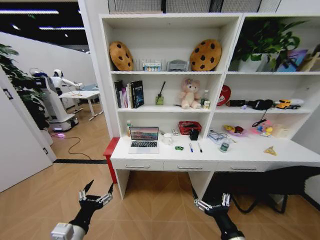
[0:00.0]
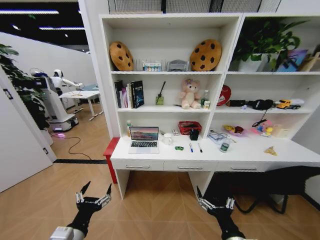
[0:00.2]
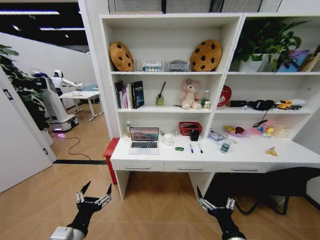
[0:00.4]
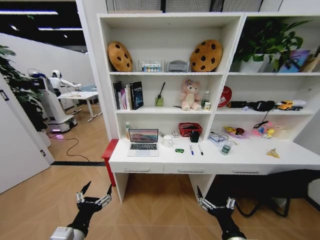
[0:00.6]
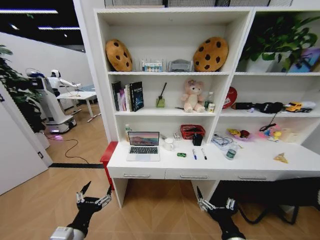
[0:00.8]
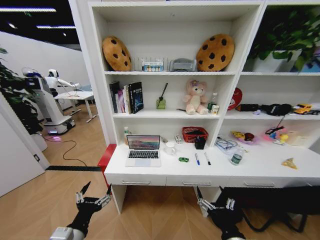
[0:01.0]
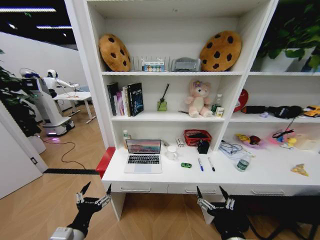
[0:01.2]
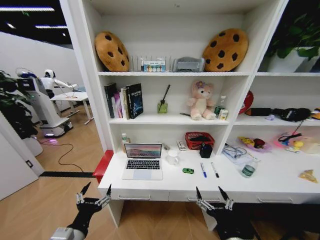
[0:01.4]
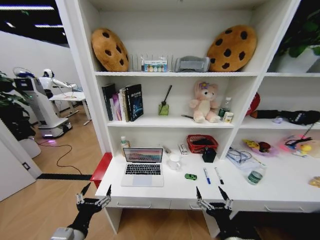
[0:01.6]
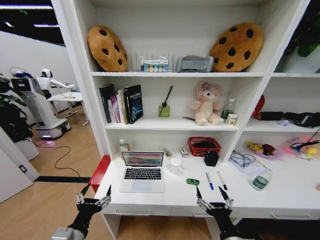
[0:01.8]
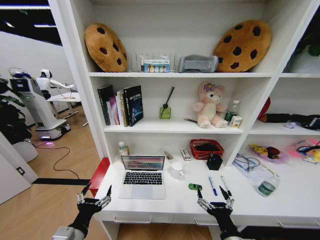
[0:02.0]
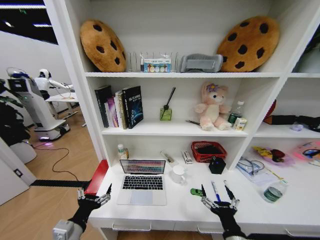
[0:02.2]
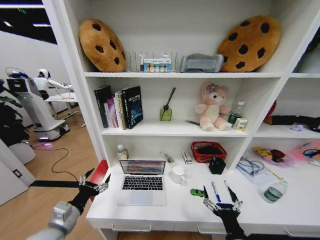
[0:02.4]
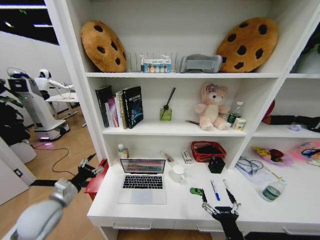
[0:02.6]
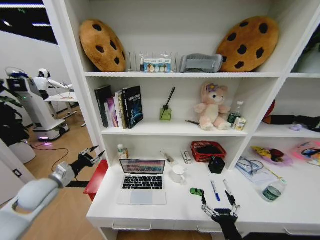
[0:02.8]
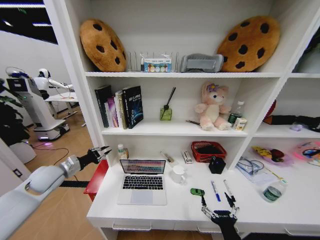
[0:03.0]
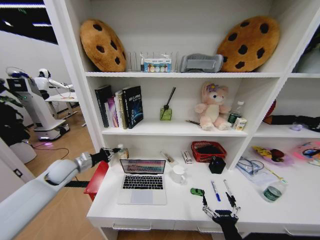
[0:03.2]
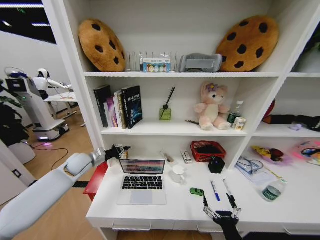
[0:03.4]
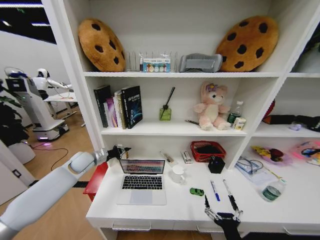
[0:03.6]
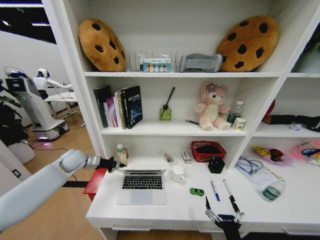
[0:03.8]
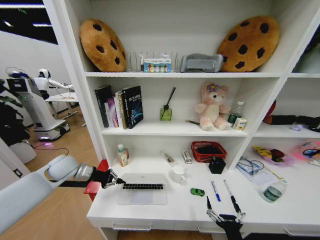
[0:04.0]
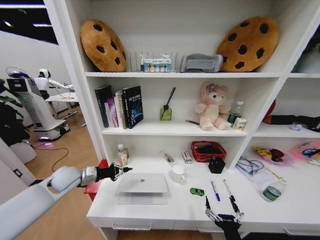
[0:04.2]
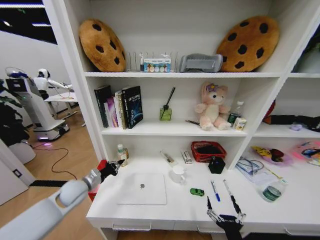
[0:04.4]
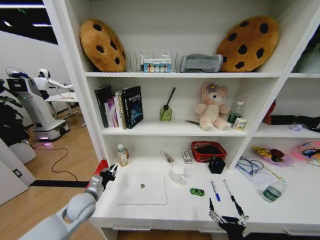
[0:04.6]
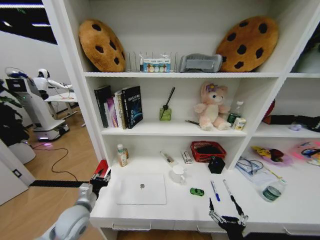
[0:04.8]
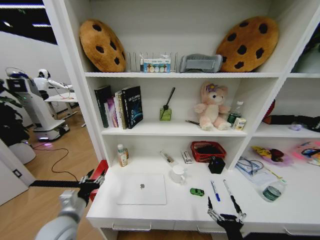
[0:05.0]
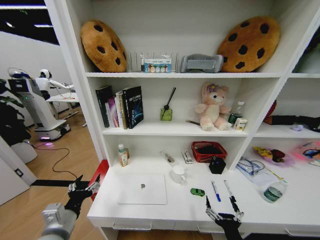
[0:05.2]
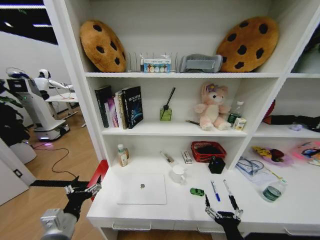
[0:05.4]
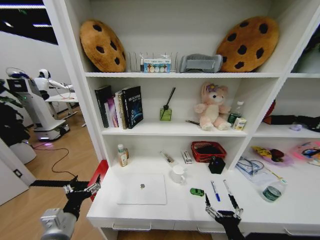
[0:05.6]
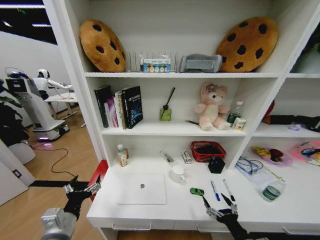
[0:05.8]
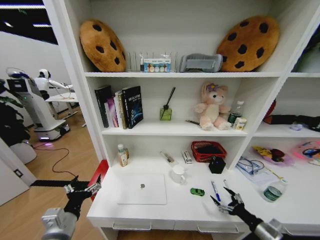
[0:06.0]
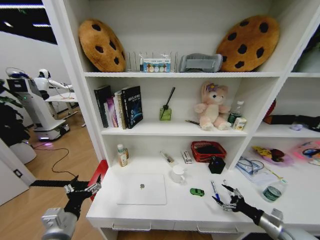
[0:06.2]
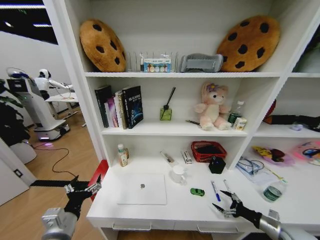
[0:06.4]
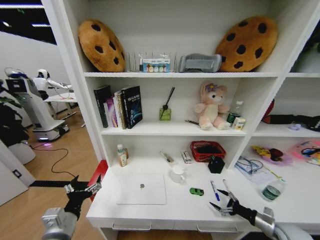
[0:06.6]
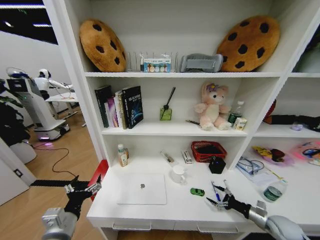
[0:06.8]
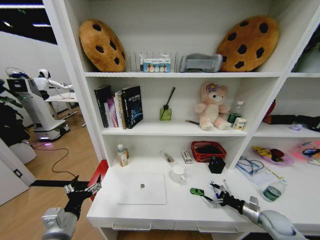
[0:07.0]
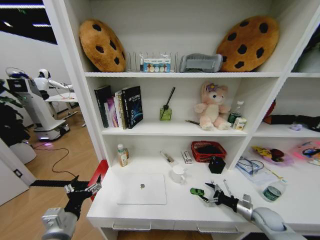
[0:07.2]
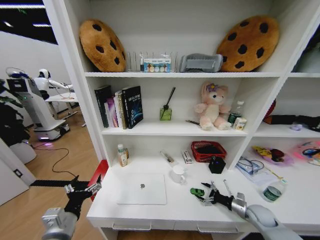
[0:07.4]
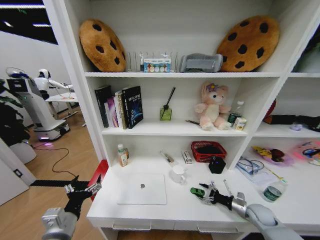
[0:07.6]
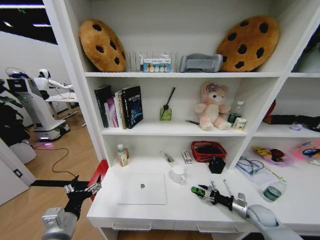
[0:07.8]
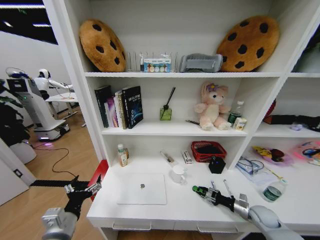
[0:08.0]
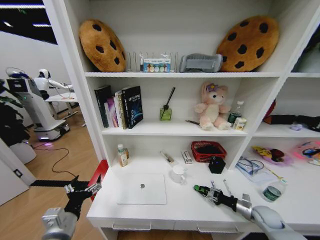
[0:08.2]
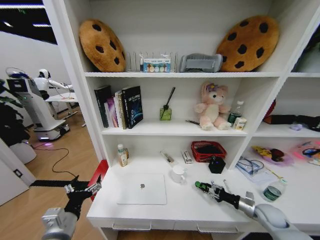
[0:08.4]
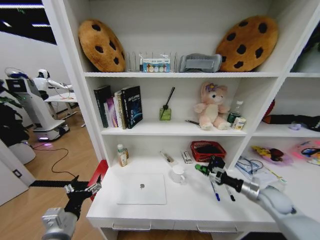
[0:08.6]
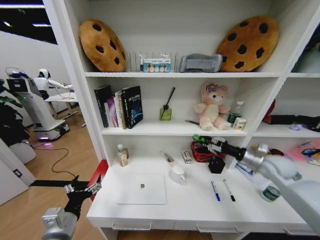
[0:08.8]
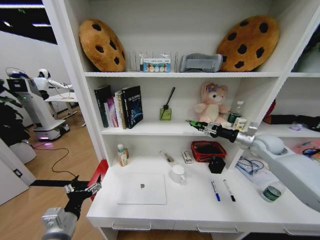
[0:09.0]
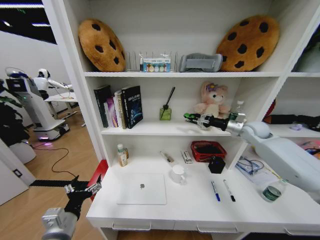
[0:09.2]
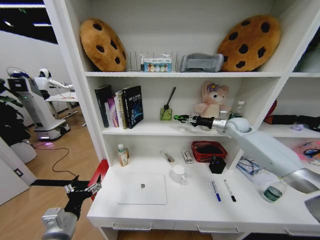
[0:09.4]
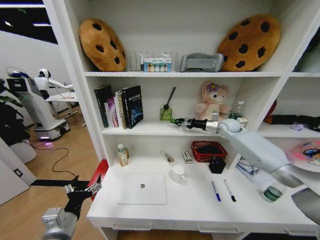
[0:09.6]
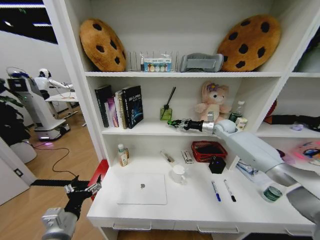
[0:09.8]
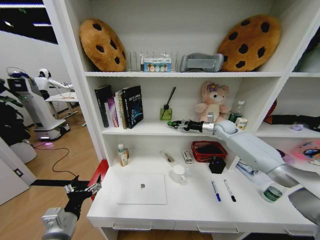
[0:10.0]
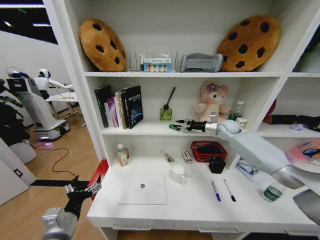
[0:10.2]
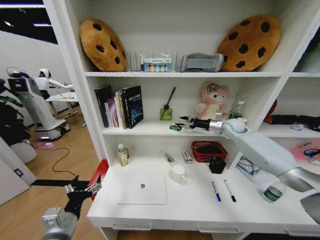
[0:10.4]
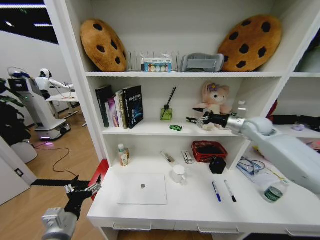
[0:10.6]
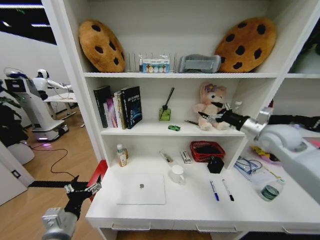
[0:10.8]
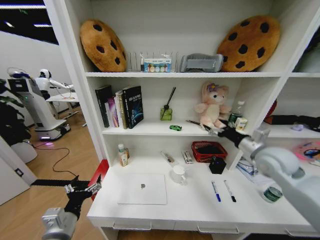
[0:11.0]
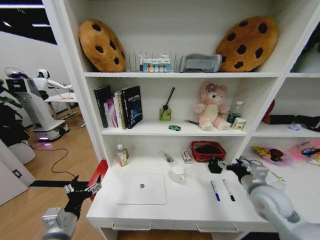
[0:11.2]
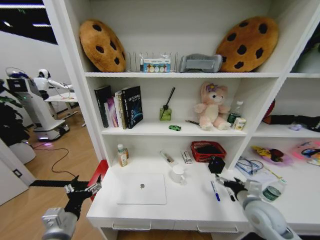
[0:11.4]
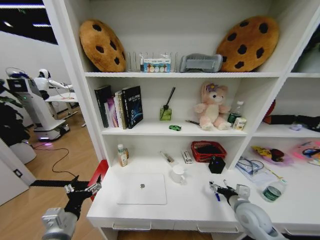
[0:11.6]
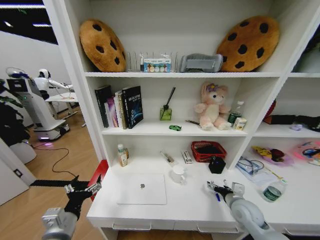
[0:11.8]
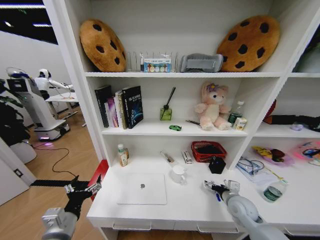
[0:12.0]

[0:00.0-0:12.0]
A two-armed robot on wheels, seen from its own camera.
Task of the whole recording: Organize the objects on the table.
0:01.6 to 0:03.0: The left gripper heads forward and to the left, covering about 30 cm, and closes its fingers.
0:03.0 to 0:04.4: The left gripper moves to the right and downward, roughly 10 cm, and moves approximately 10 cm forward and comes back.
0:04.4 to 0:06.0: The right gripper heads to the right and forward, covering roughly 20 cm. Meanwhile the left gripper goes some 20 cm backward, and opens up.
0:06.0 to 0:07.6: The right gripper is displaced forward and downward by roughly 15 cm.
0:07.6 to 0:09.0: The right gripper moves upward and forward, about 35 cm, and closes.
0:09.0 to 0:10.4: The right gripper travels forward and to the left by about 15 cm, and opens.
0:10.4 to 0:12.0: The right gripper heads backward and downward, covering some 35 cm.

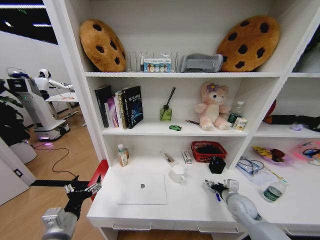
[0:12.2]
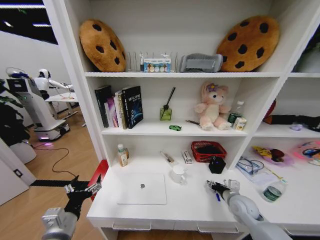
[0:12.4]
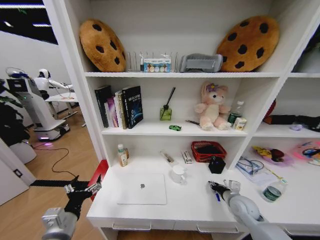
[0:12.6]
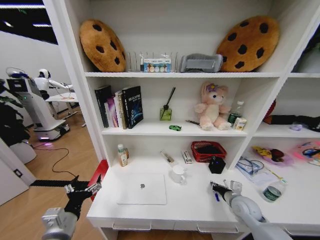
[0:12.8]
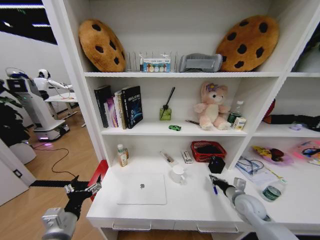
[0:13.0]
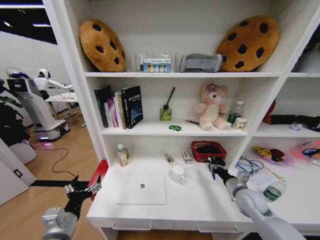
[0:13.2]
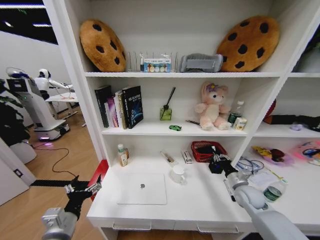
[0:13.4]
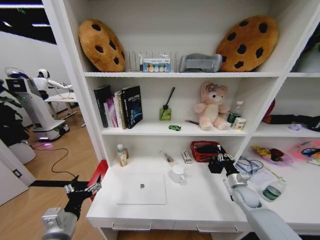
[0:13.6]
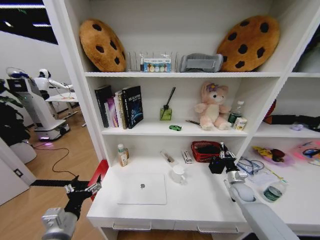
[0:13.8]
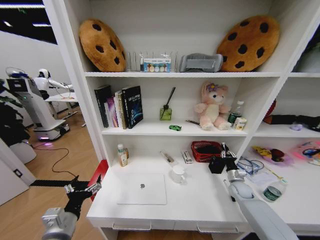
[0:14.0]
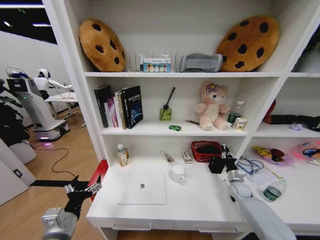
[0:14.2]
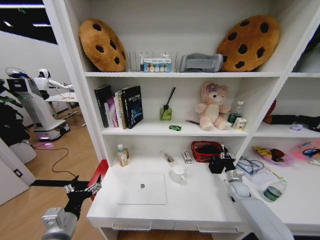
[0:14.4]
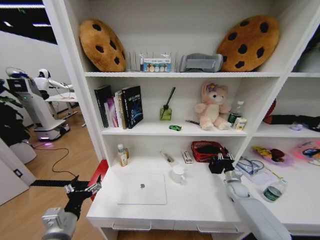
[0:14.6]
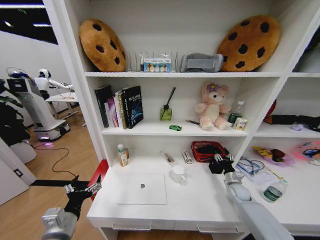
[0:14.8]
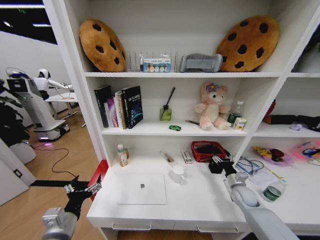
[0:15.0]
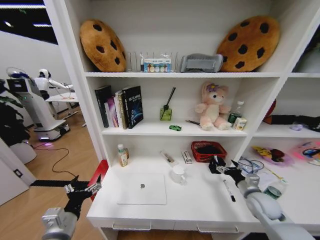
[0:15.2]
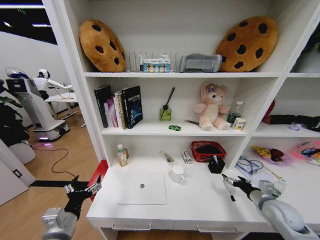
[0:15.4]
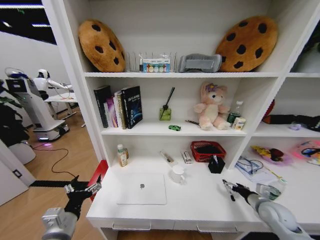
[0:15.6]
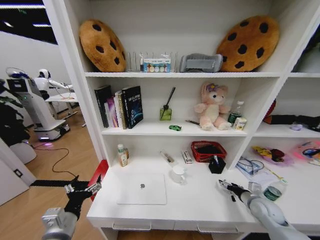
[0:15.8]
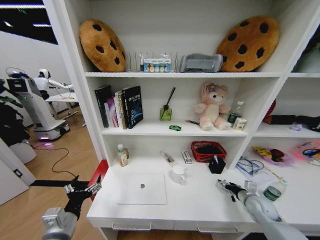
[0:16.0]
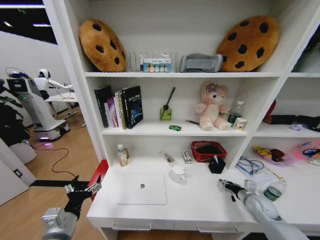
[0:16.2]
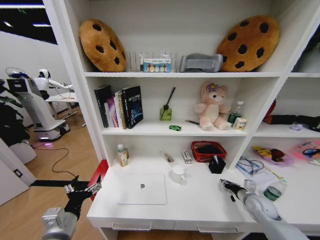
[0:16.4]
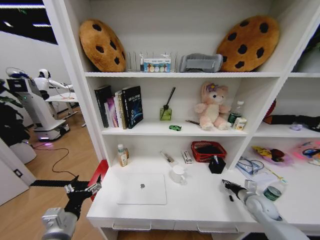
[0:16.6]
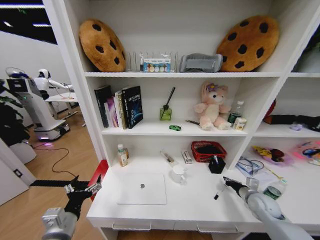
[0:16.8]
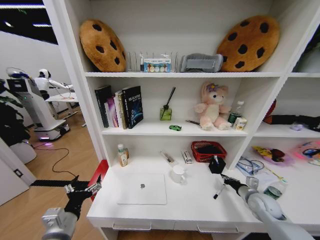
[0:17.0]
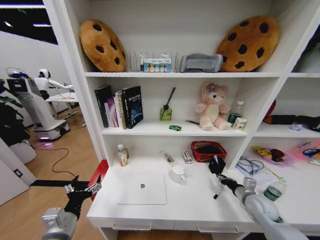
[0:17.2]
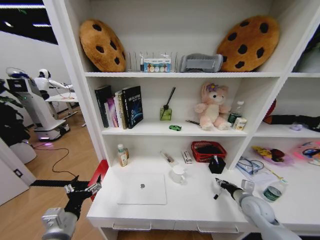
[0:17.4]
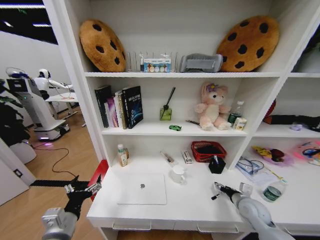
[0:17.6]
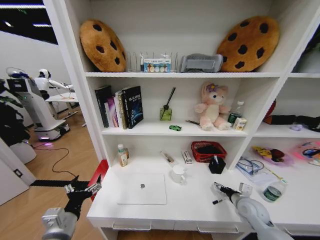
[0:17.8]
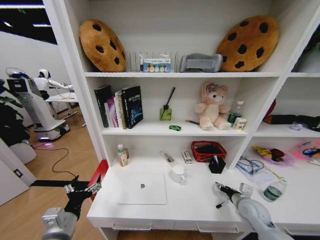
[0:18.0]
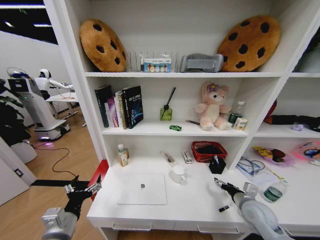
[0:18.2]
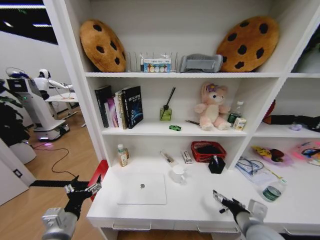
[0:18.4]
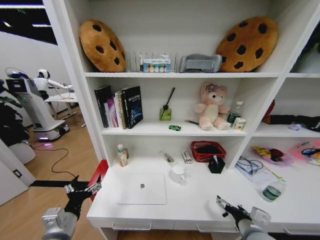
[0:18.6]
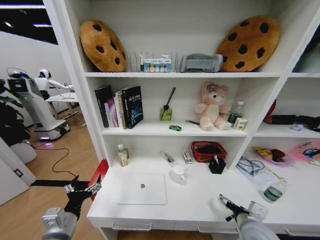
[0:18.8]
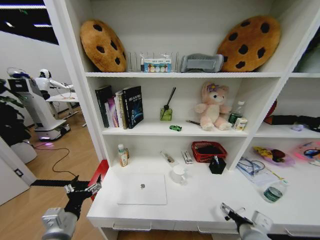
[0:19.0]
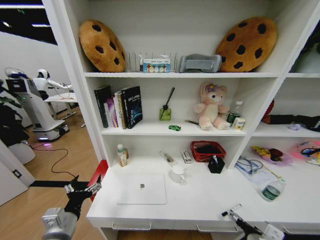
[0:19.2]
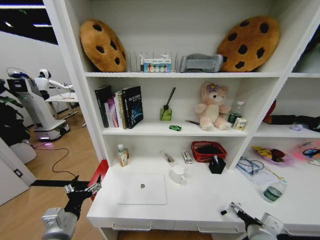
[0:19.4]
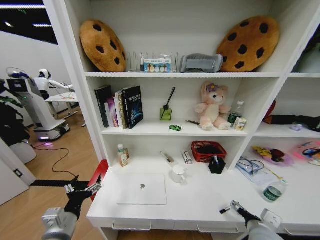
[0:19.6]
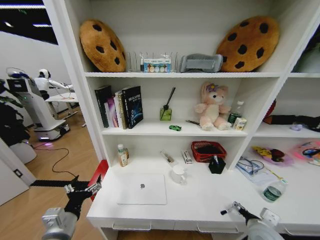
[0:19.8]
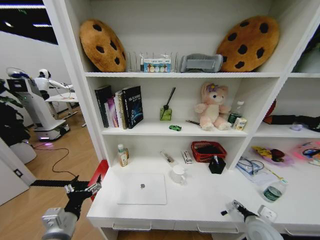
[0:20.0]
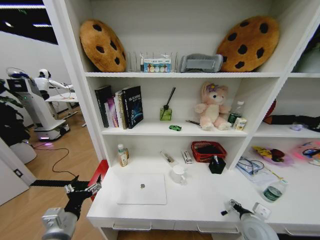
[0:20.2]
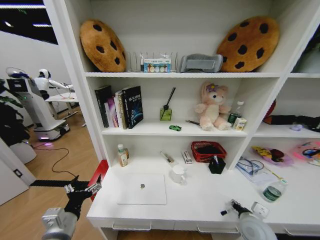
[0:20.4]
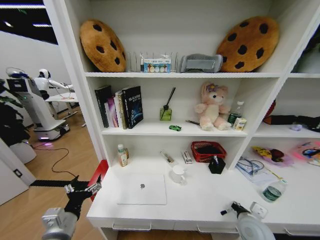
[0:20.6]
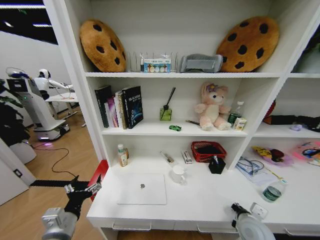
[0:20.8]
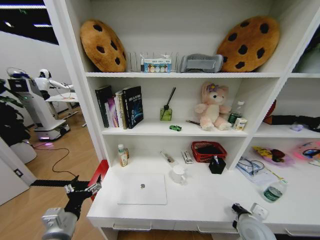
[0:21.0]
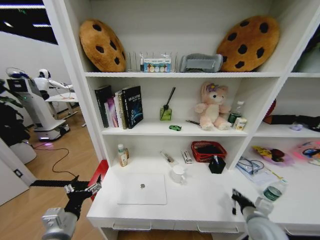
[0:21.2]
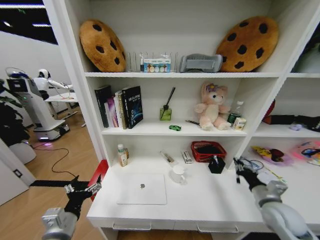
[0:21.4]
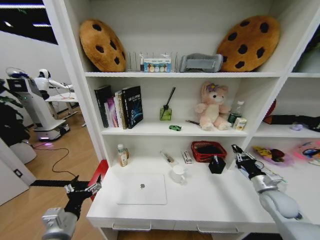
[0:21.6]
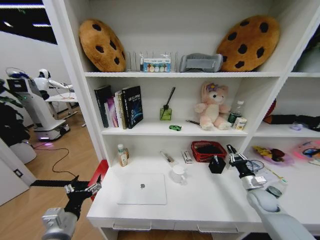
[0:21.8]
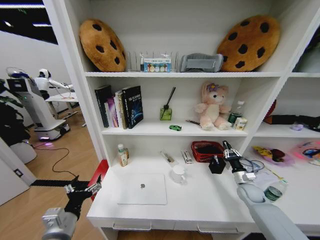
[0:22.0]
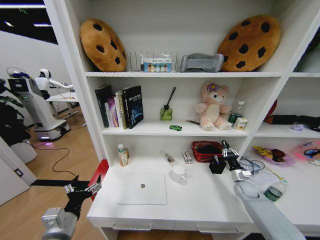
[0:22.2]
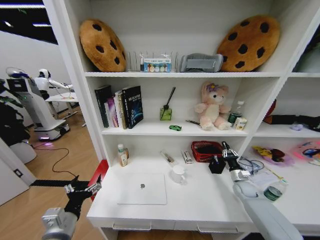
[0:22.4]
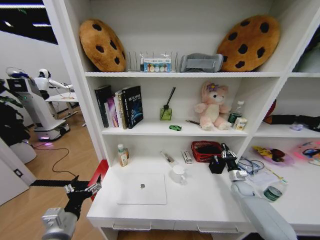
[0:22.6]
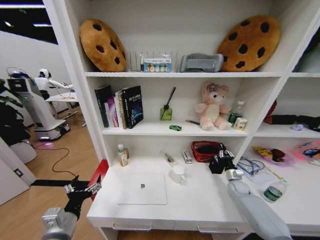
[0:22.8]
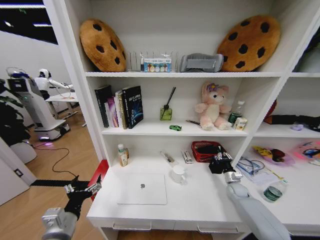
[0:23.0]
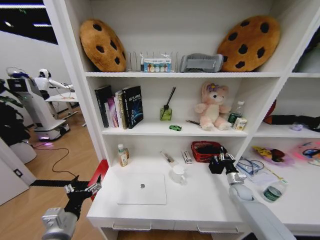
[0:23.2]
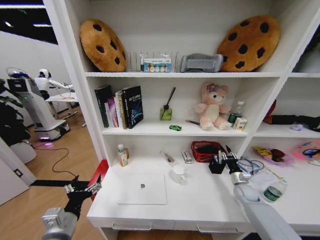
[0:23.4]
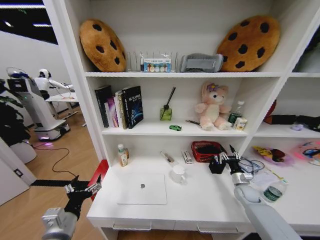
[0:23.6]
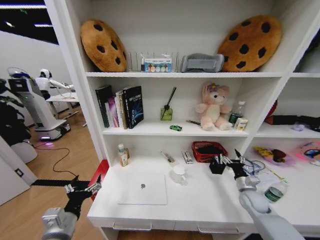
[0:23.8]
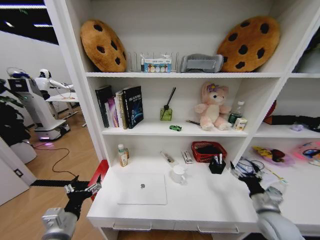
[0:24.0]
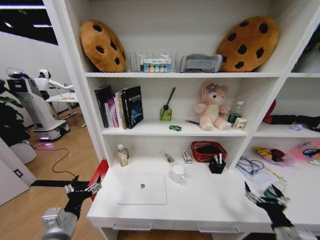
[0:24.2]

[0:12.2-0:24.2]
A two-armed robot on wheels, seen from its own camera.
Task of the whole recording: Organize the objects on the table.
0:12.2 to 0:13.8: The right gripper shifts approximately 10 cm to the right and forward, and closes.
0:13.8 to 0:15.2: The right gripper moves backward and upward, some 10 cm, and opens up.
0:15.2 to 0:16.6: The right gripper changes place by some 5 cm, and closes.
0:16.6 to 0:18.2: The right gripper heads to the left, covering about 5 cm, and opens up.
0:18.2 to 0:19.8: The right gripper heads backward, covering roughly 10 cm.
0:19.8 to 0:21.2: The right gripper closes.
0:21.2 to 0:22.6: The right gripper is displaced forward, to the right and downward by roughly 25 cm.
0:22.6 to 0:24.2: The right gripper travels backward by about 30 cm, and opens its fingers.
